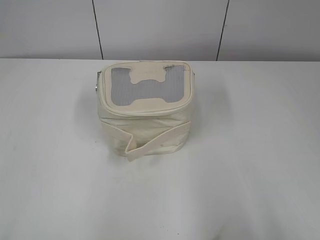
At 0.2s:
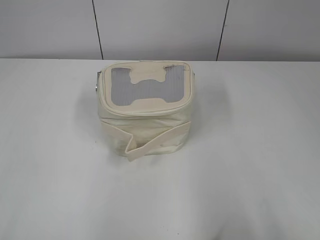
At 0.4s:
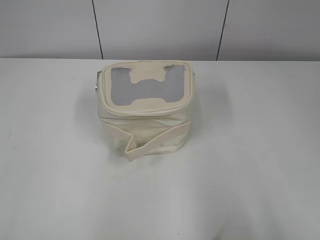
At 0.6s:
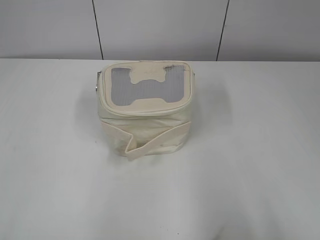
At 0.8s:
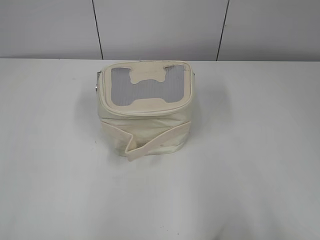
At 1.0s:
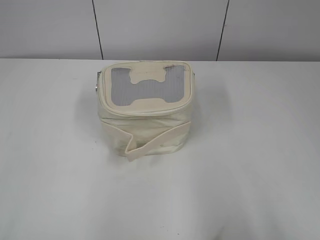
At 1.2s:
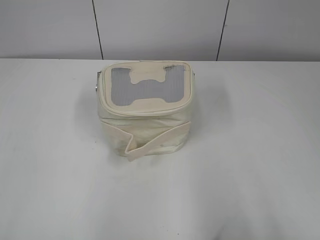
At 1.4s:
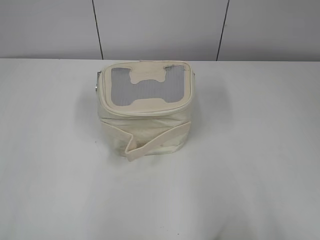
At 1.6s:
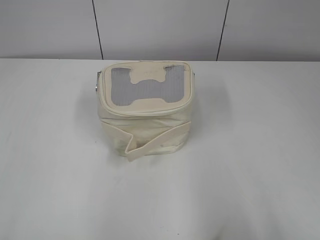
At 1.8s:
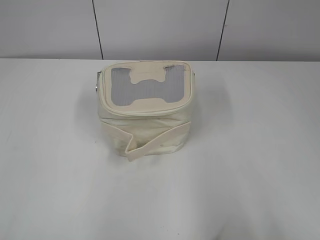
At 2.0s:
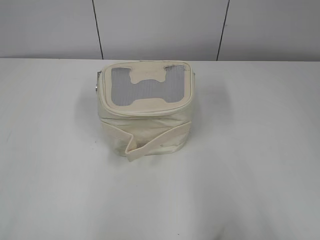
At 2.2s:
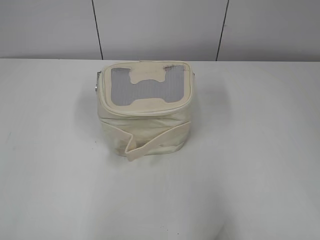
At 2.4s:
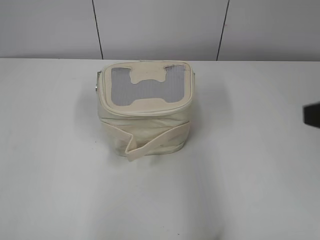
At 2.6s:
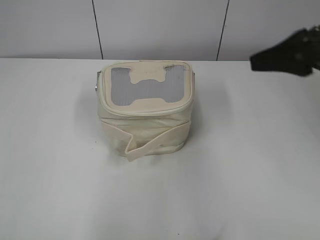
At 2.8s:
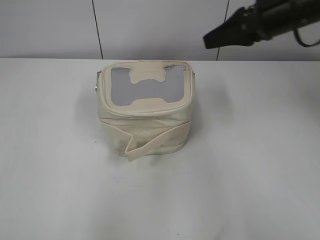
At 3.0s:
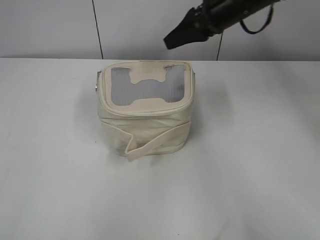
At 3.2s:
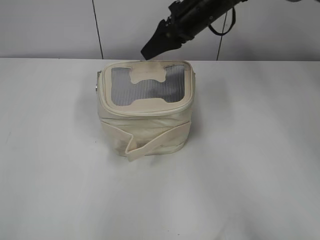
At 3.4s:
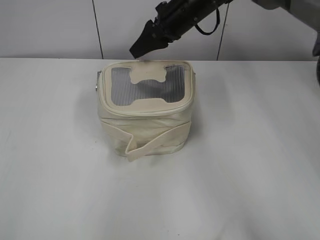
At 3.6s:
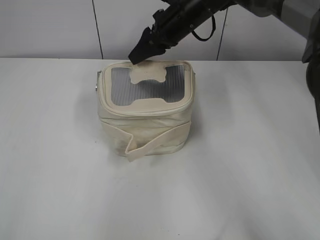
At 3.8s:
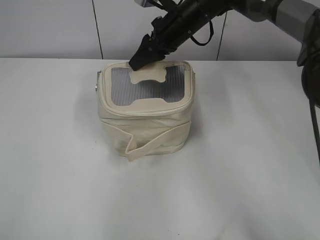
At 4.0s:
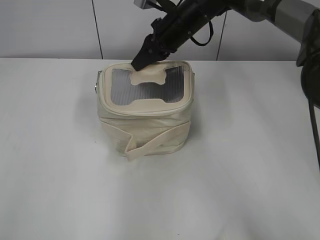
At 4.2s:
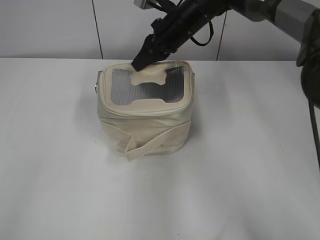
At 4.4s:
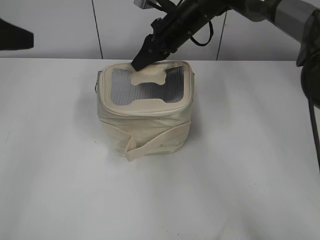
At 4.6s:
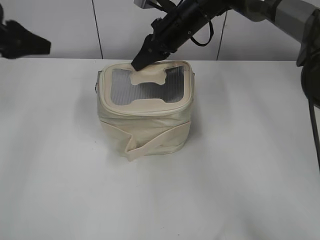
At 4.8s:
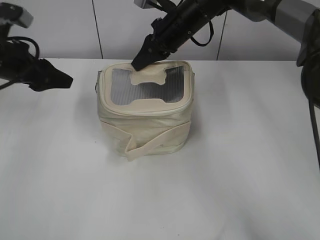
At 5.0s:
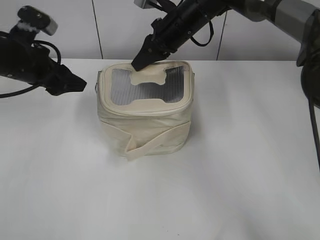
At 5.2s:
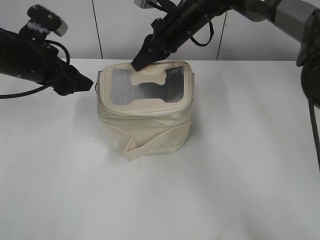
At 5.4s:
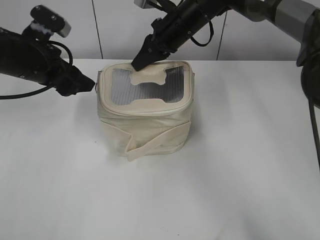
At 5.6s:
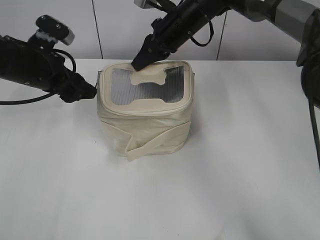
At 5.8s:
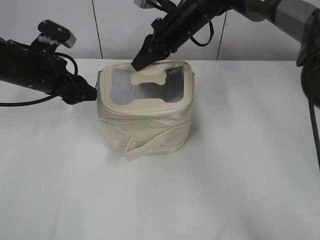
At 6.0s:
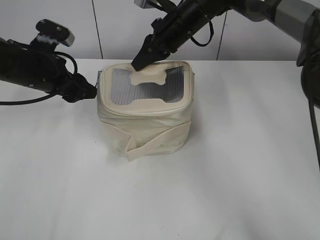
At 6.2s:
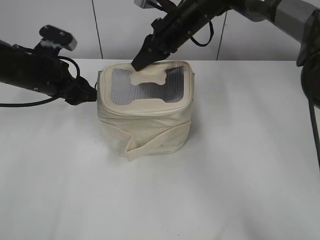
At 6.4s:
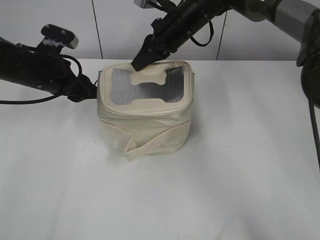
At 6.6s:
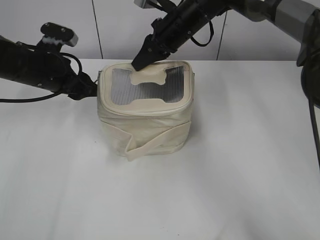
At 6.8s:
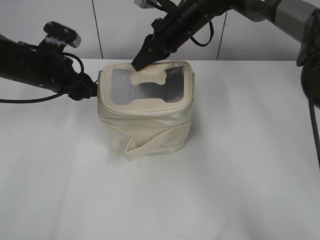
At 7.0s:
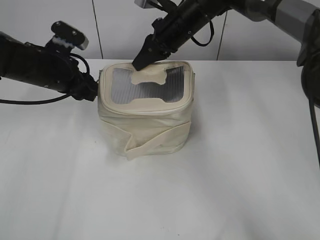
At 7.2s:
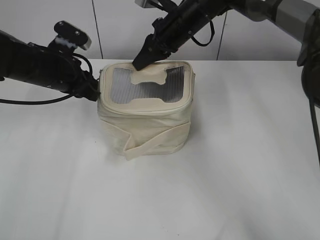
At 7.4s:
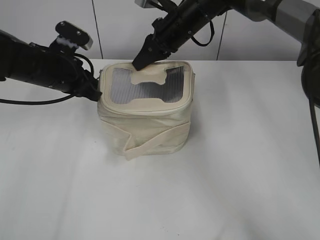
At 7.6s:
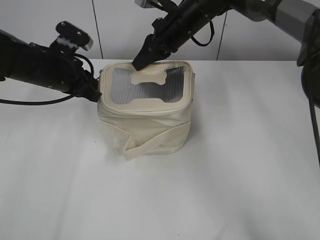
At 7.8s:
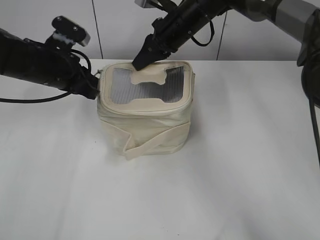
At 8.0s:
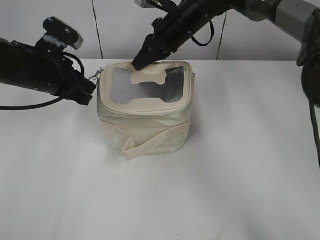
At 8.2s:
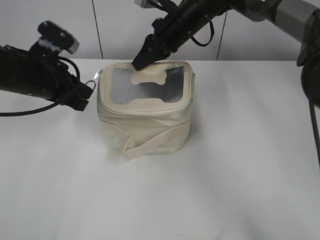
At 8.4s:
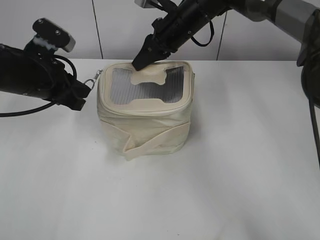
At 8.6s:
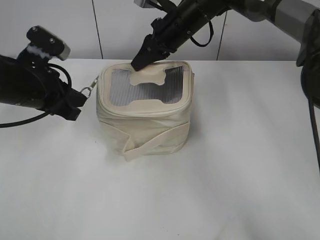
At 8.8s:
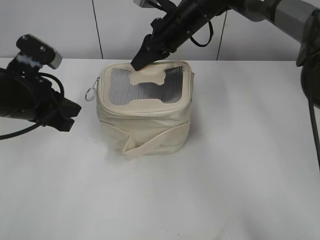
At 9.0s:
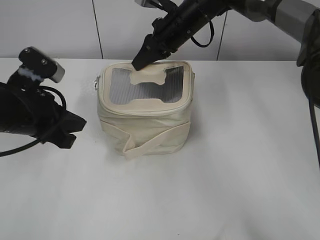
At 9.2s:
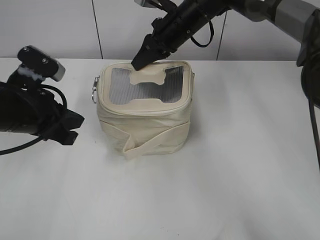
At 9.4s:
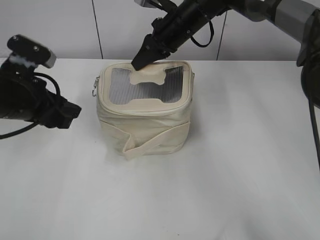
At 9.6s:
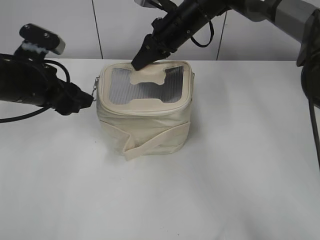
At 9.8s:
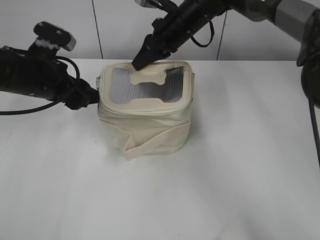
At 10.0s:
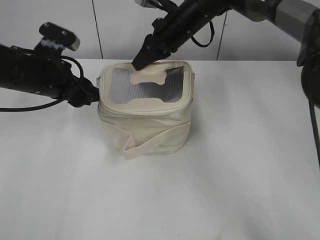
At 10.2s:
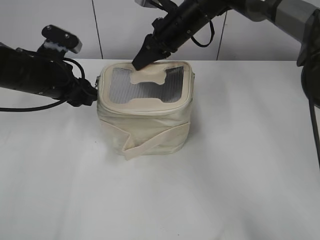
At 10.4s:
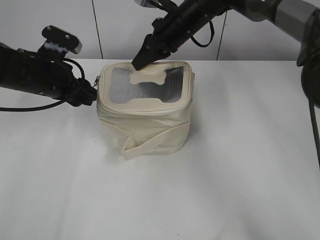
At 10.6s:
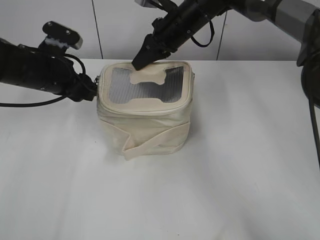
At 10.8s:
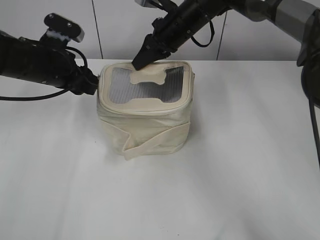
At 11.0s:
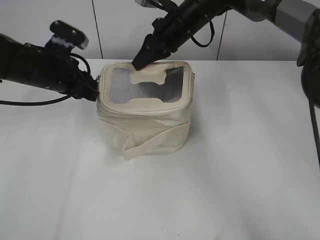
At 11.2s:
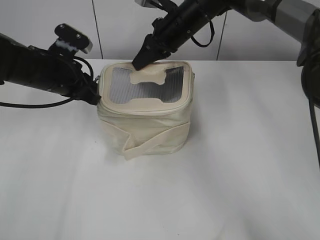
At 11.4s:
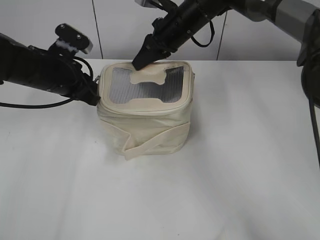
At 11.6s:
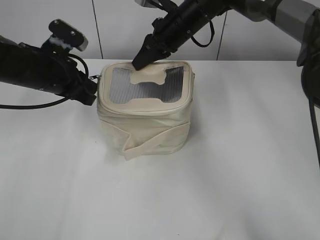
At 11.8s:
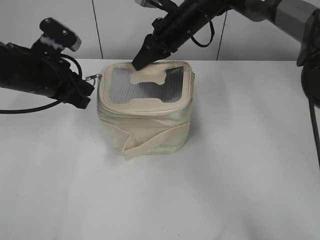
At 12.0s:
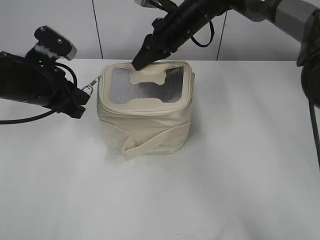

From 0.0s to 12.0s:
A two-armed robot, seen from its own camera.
From 1.6s to 3.0s: The right gripper goes some 50 cm forward and to the left.
From 3.0s to 4.4s: The right gripper is displaced to the left and downward by approximately 10 cm, and closes up. Meanwhile the left gripper is displaced forward by some 25 cm.
From 4.4s to 6.0s: The left gripper goes roughly 20 cm downward, forward and to the right, and opens up.
From 6.0s to 7.6s: The left gripper closes up.
From 7.6s to 9.0s: The left gripper moves backward, some 10 cm.
From 9.0s to 10.4s: The left gripper shifts about 10 cm forward, and opens its fingers.
From 10.4s to 12.0s: The left gripper closes up.

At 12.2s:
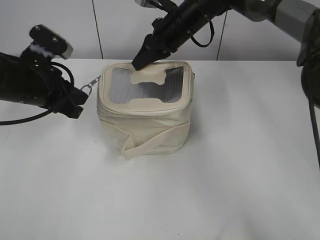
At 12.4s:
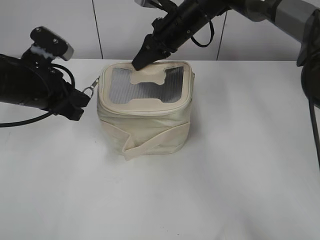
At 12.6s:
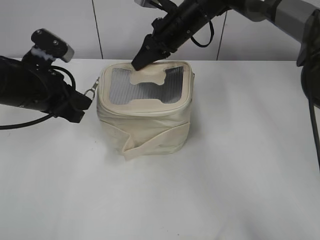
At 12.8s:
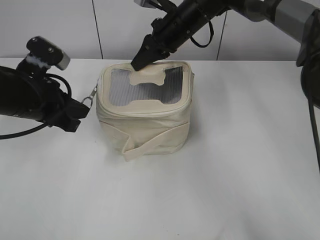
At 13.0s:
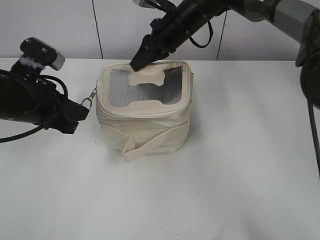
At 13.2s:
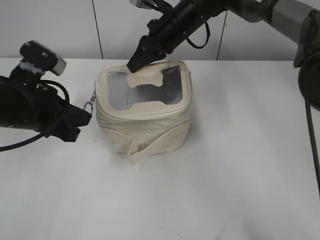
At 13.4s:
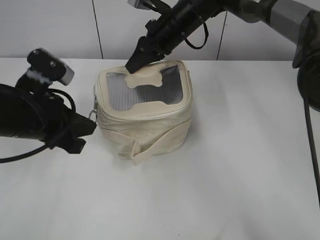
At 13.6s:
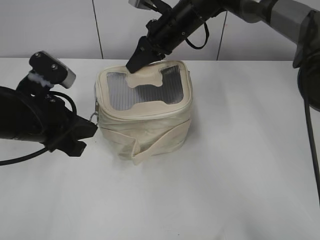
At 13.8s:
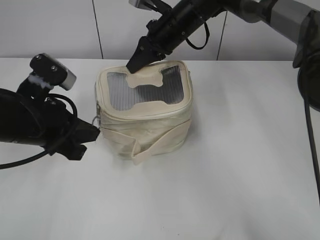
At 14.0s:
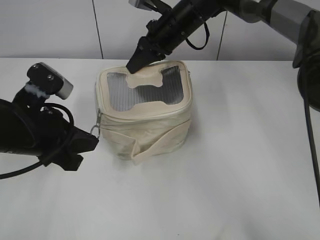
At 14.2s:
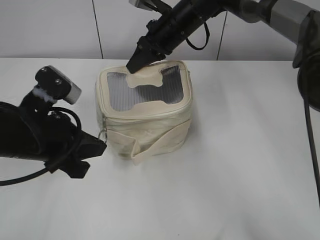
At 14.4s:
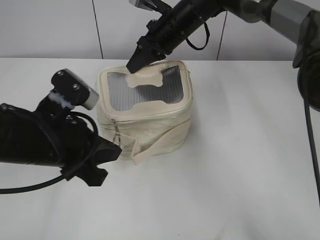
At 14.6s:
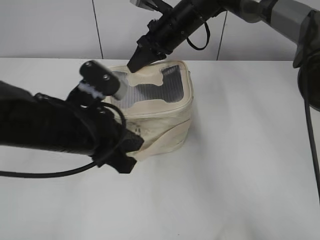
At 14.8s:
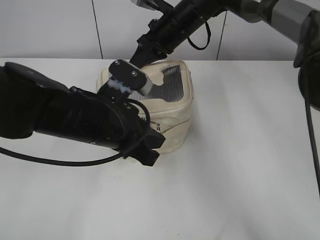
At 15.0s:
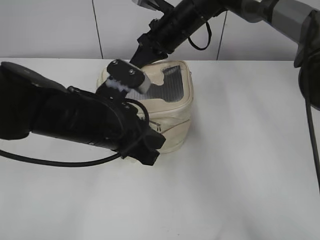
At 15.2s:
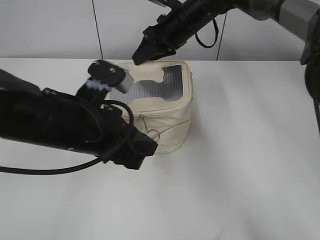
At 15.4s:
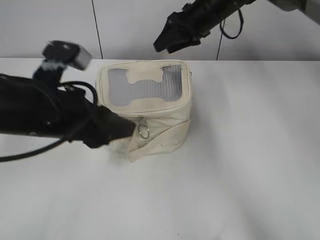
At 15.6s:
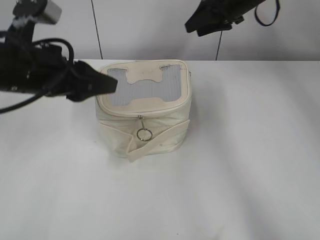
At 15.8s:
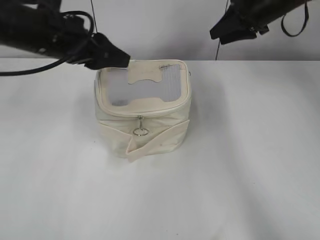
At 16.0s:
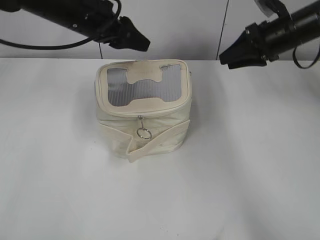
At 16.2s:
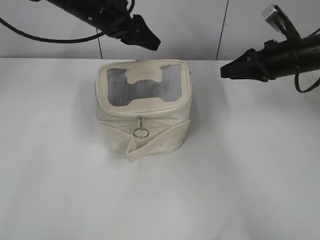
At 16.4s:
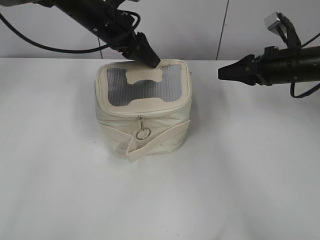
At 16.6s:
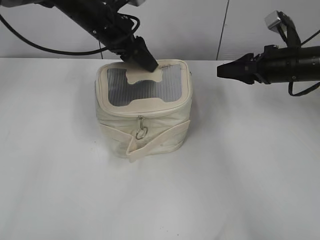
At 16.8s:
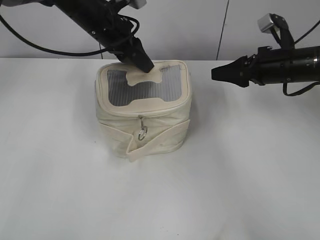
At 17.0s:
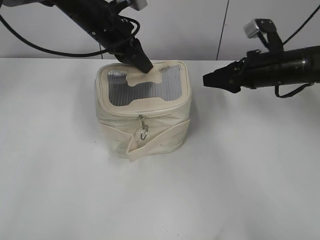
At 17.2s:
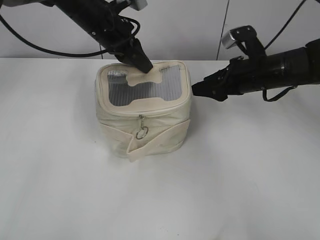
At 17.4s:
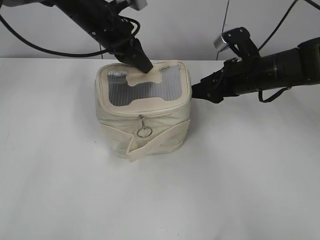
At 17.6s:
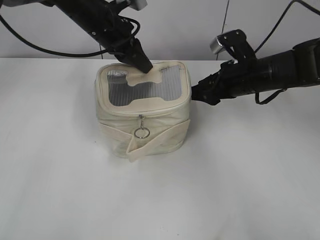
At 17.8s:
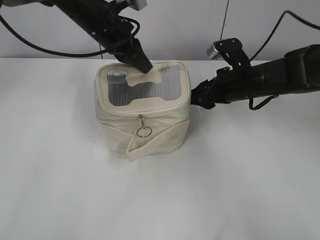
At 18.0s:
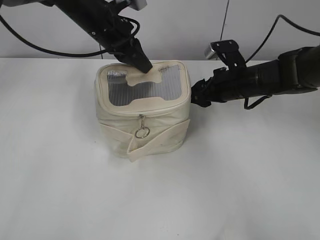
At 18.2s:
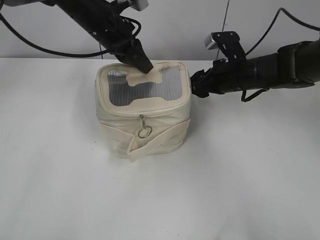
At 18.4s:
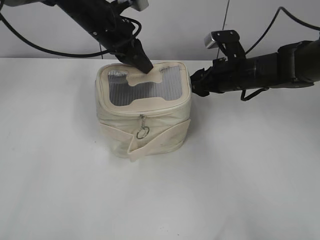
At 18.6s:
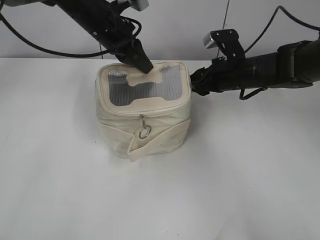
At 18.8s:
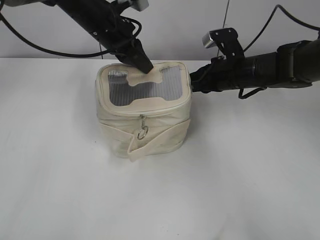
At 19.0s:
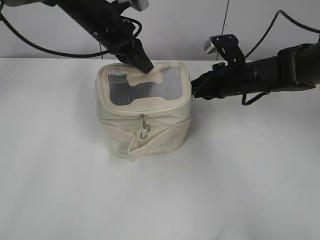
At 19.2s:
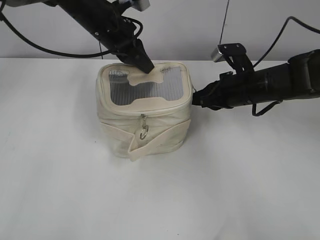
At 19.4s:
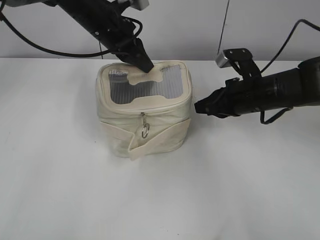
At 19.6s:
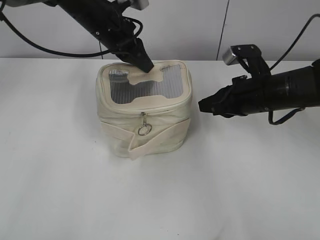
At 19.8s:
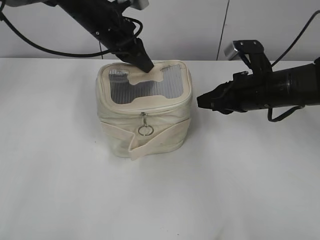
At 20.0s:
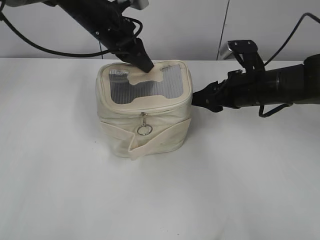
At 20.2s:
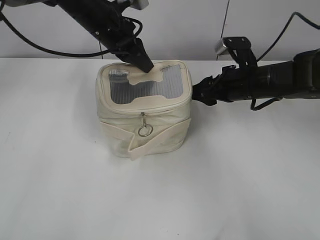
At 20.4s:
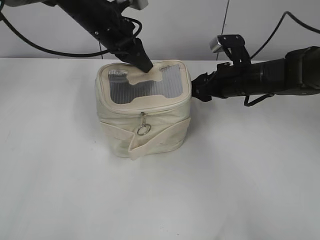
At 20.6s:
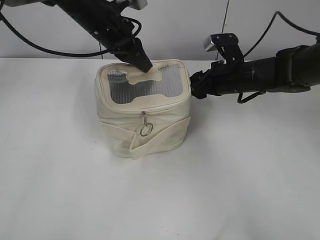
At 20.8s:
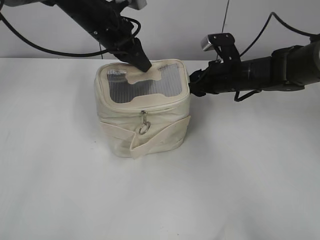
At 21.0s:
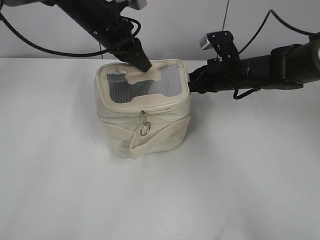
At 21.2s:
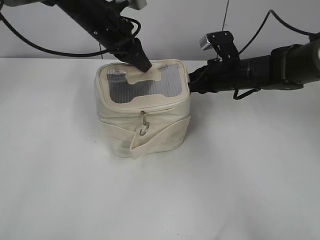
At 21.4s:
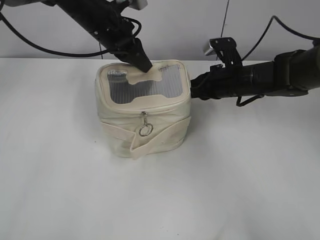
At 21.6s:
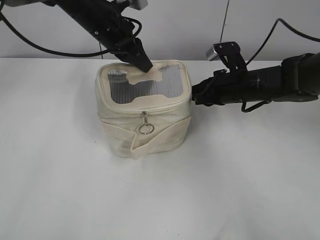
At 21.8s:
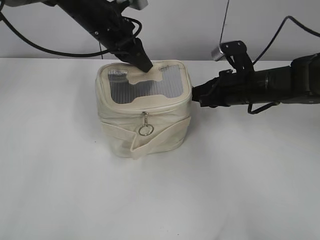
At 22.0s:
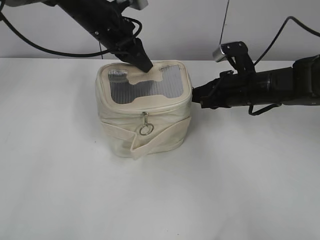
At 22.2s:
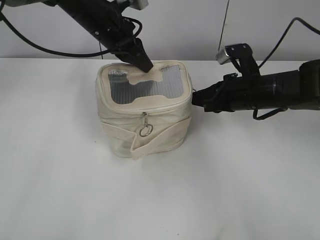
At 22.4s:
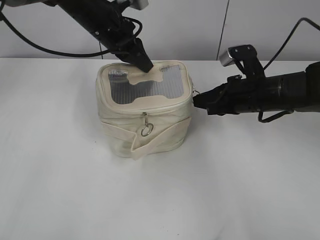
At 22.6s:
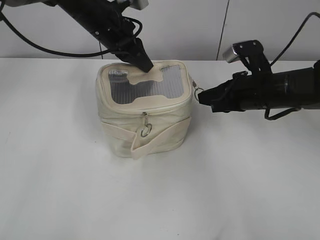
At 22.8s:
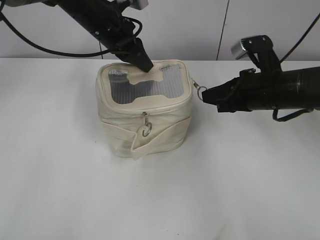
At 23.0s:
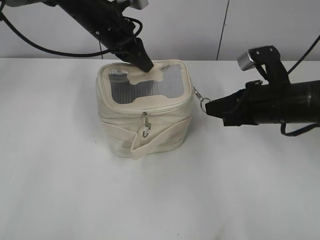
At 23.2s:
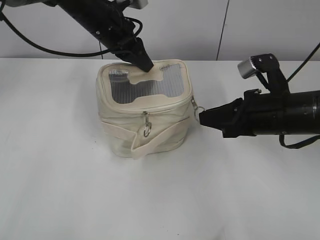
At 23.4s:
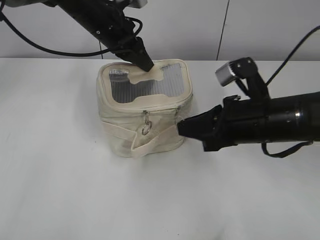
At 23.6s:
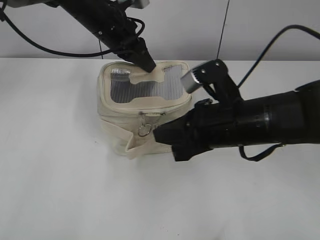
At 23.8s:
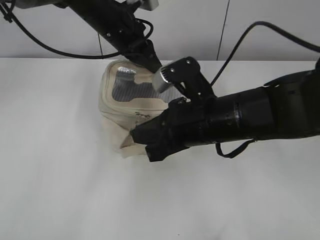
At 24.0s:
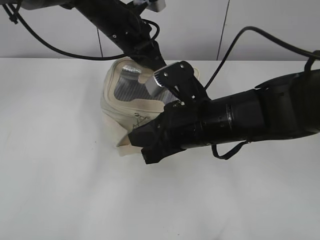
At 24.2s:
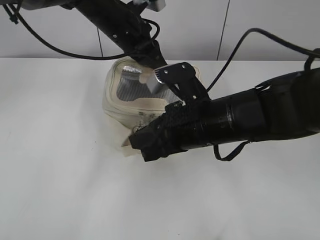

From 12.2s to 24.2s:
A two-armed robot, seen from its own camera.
Step, from 12.2s to 15.0s: Zip up the bag with your left hand.
From 12.2s to 13.8s: The left gripper moves backward, roughly 5 cm.
From 13.8s to 15.2s: The left gripper goes some 10 cm to the right, while the right gripper opens.
From 15.2s to 16.6s: The left gripper travels forward by roughly 20 cm, and opens; the right gripper moves to the right and backward, approximately 20 cm, and opens.
From 16.6s to 18.2s: The left gripper closes. Meanwhile the right gripper is displaced to the left by approximately 10 cm.
From 18.2s to 19.8s: The right gripper shifts about 5 cm backward, and closes its fingers.
From 19.8s to 21.2s: The right gripper is displaced forward by about 10 cm, and opens, then closes again.
From 21.2s to 22.6s: The right gripper moves backward, roughly 10 cm.
From 22.6s to 24.2s: The right gripper goes approximately 15 cm to the left and backward.
